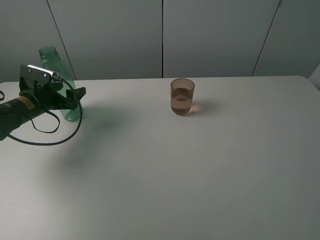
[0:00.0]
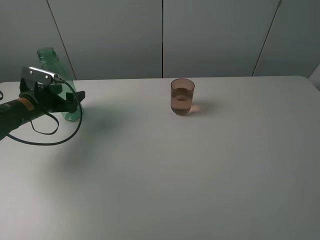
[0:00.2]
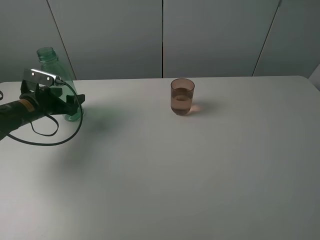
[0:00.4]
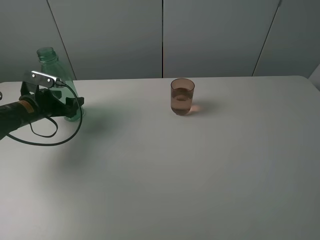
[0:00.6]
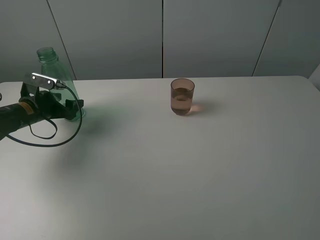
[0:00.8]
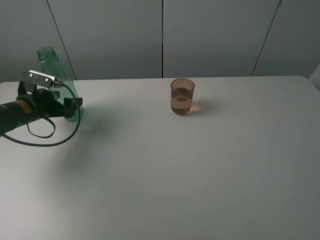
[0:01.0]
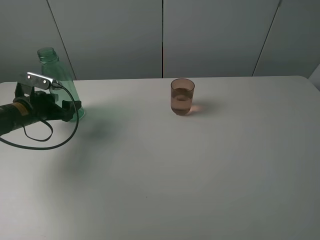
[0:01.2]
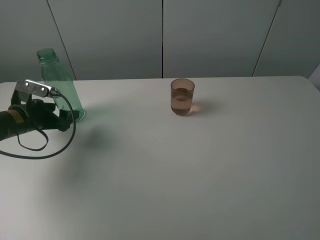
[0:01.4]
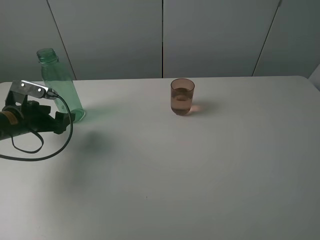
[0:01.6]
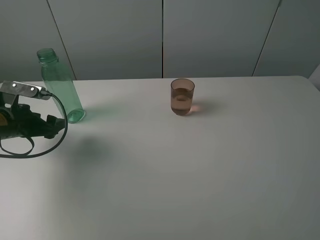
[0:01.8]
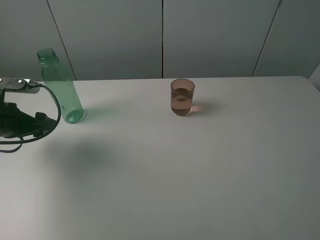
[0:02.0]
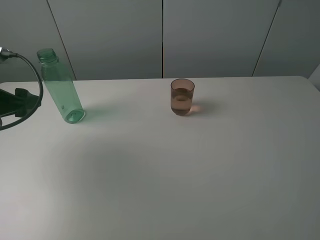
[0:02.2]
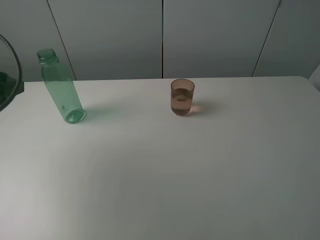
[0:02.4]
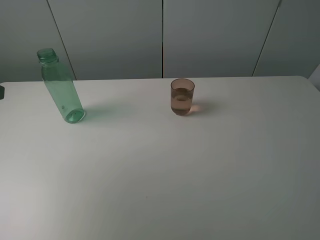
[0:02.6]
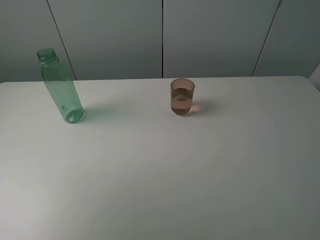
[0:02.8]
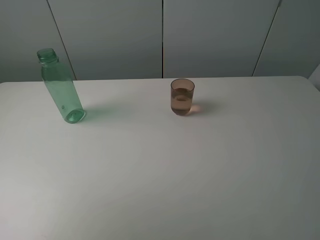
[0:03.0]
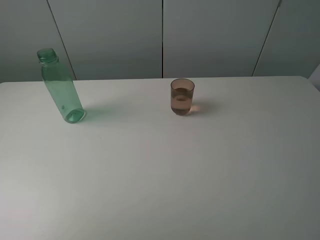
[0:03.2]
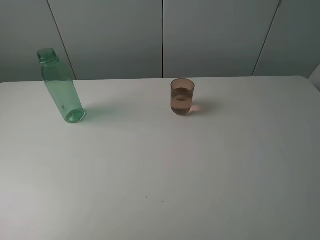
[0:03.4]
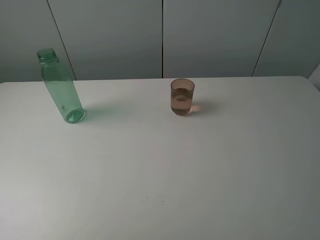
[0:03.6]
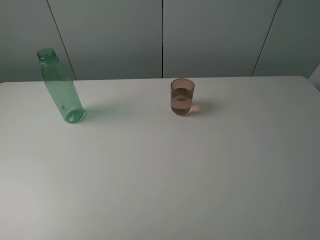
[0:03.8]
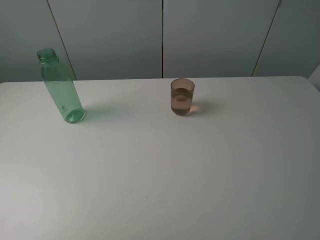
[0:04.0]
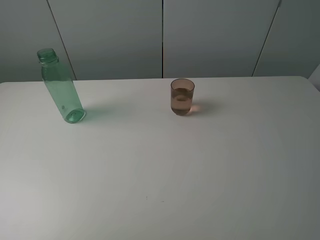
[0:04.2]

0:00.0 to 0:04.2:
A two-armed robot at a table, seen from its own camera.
Task of the whole recording: pick up the bottle filled with water and pour it into the pink cup.
0:00.0 to 0:01.4: The left gripper travels backward by roughly 5 cm.
0:01.4 to 0:02.8: The left gripper heads upward and backward, covering approximately 25 cm.
0:02.8 to 0:04.2: The left gripper moves backward, approximately 15 cm.

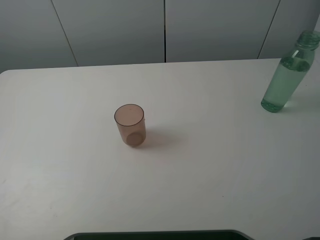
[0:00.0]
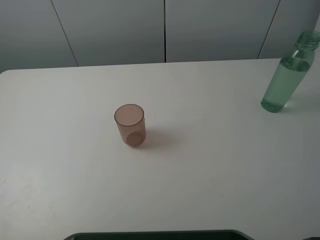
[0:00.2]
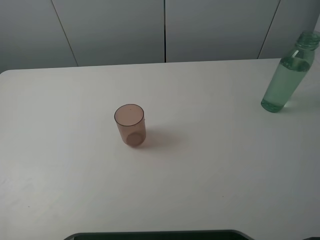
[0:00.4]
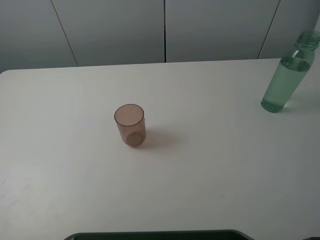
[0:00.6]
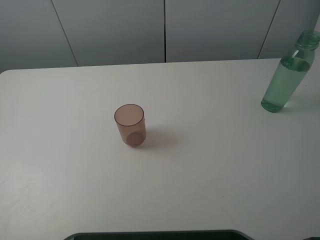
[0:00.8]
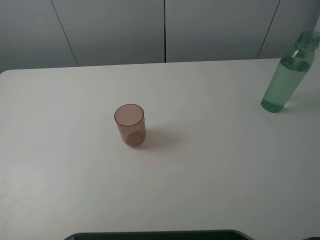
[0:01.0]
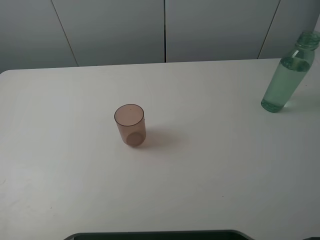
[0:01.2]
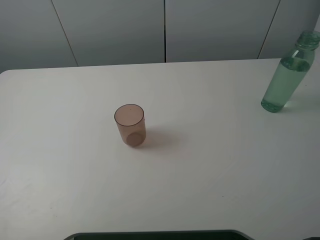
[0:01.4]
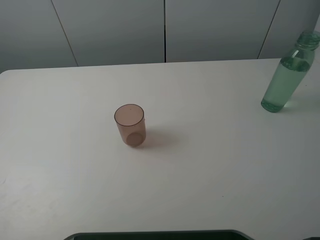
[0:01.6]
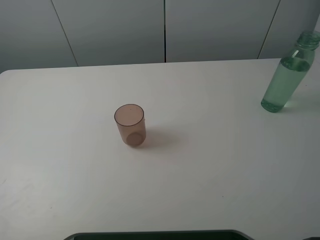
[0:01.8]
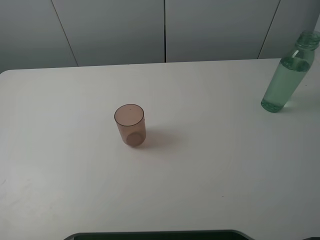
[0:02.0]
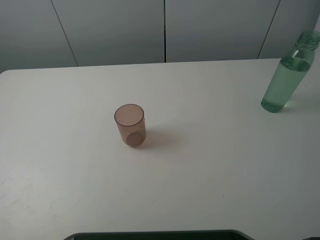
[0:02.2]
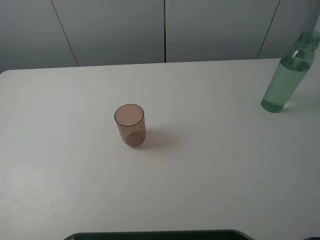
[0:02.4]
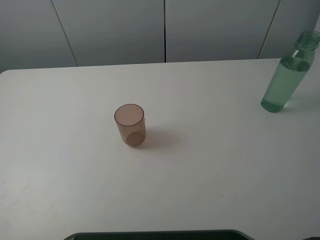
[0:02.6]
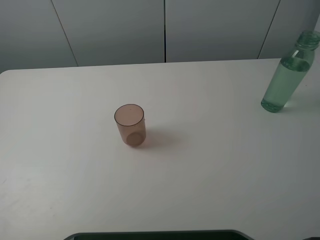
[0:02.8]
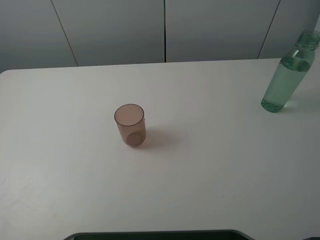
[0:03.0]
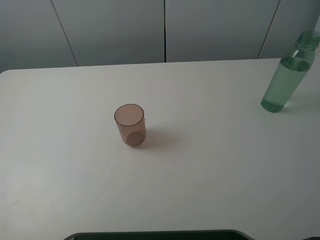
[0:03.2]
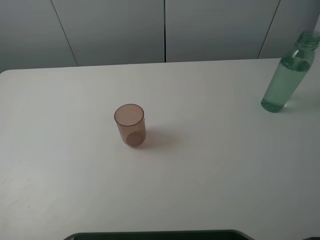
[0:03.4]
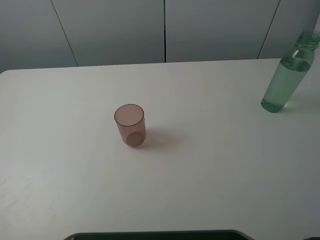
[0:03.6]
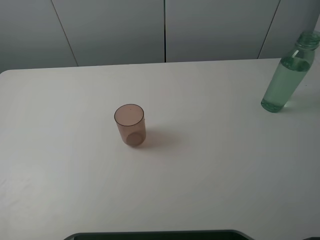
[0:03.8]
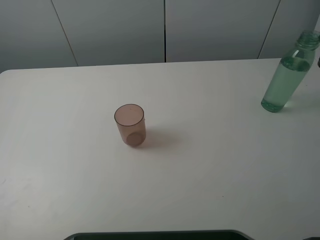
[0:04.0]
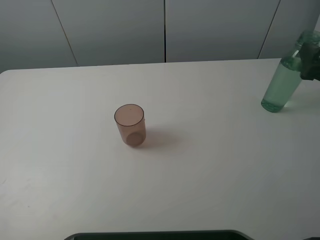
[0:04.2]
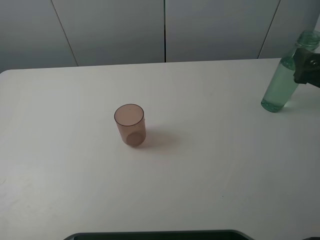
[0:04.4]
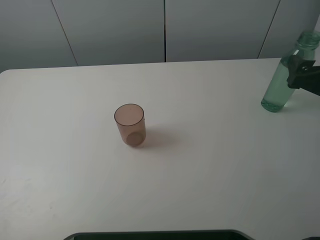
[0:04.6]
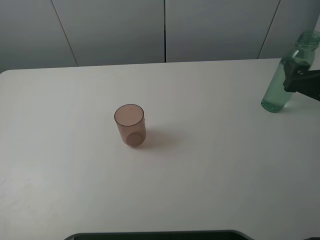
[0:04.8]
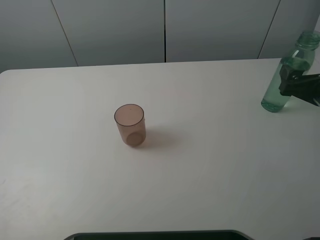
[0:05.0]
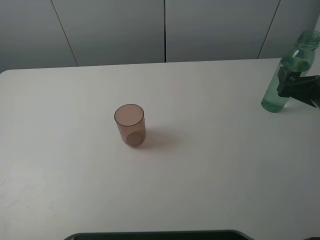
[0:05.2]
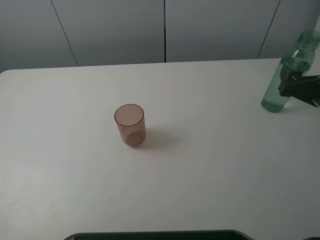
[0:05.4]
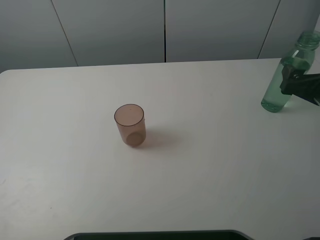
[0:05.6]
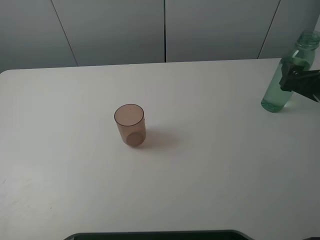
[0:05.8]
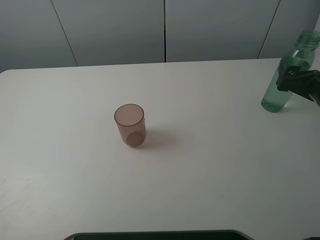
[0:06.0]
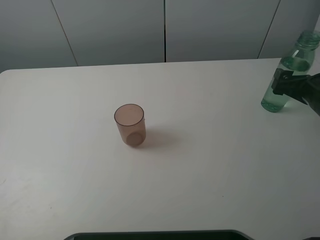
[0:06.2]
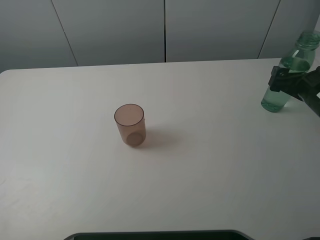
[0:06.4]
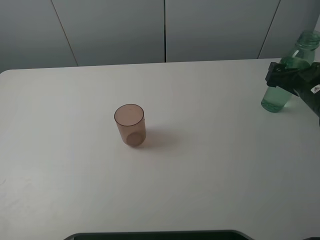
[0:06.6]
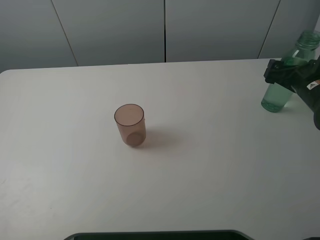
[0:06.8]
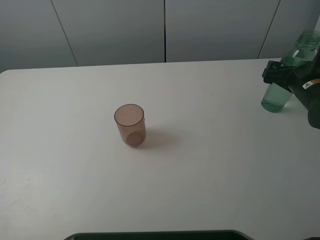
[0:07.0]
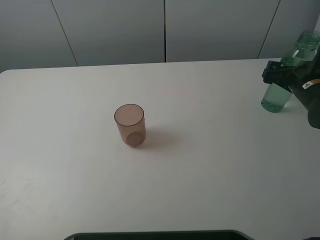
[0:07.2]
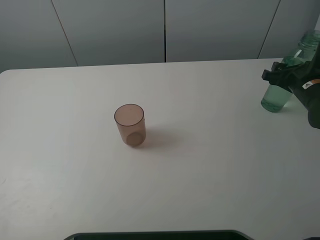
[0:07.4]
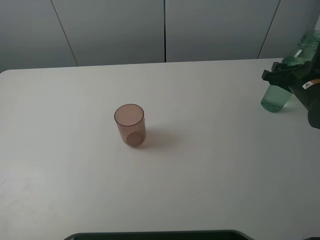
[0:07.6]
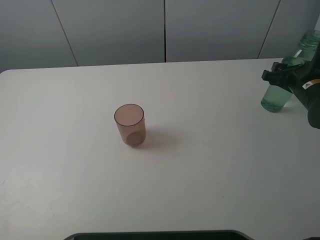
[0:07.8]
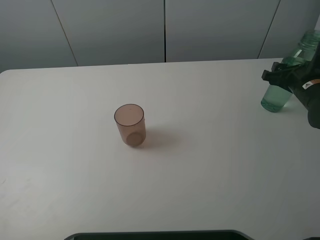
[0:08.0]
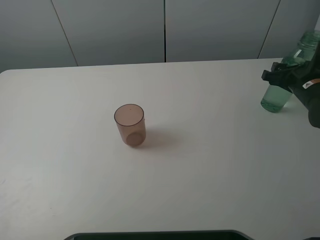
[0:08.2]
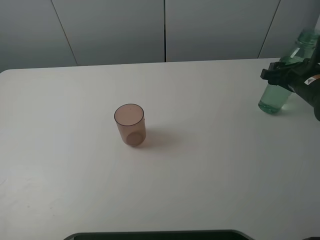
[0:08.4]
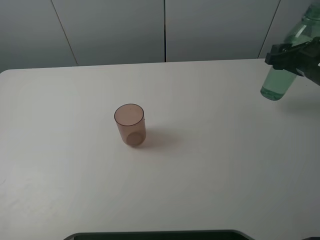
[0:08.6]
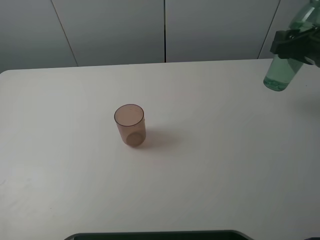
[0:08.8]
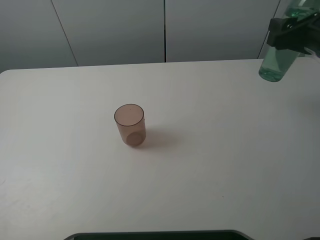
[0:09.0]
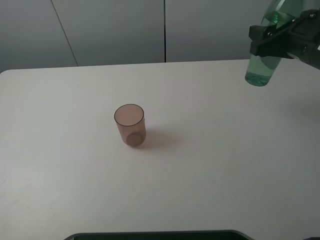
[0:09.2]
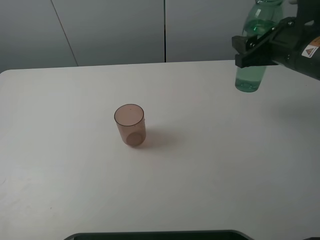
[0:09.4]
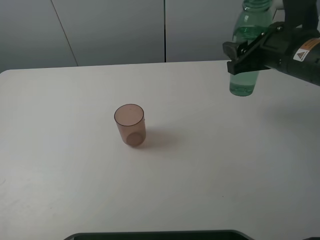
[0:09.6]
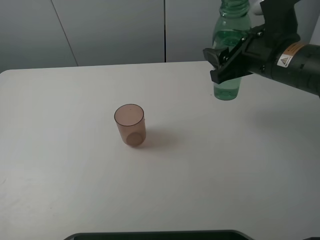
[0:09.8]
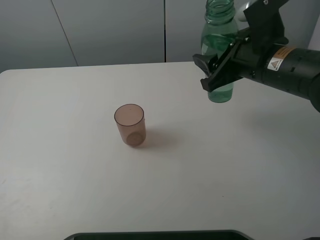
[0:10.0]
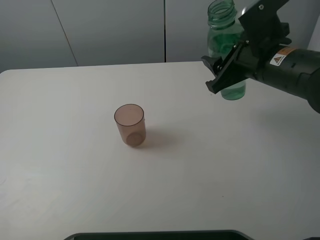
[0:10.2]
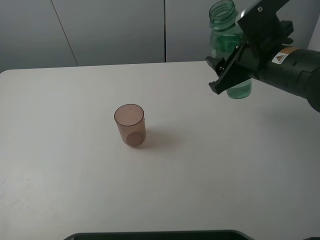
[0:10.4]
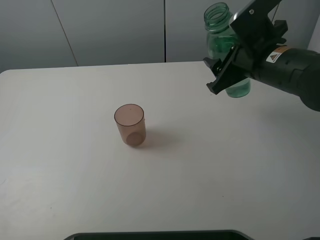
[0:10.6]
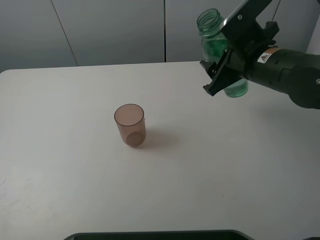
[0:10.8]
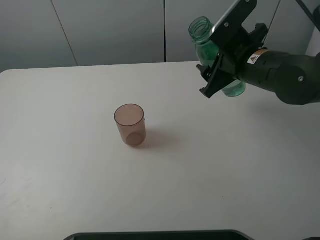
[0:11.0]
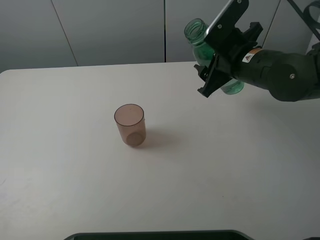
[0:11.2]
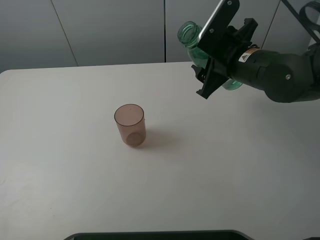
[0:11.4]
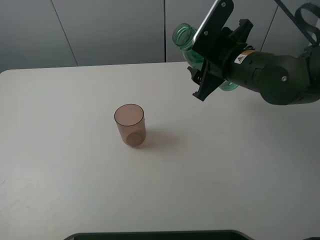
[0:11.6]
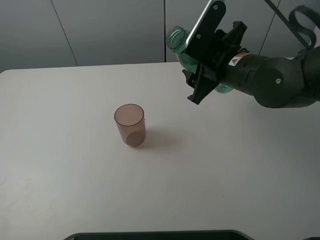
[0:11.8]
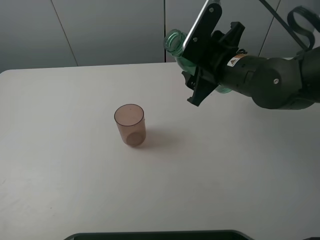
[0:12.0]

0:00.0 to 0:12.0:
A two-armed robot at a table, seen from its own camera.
Task of the whole recording: pick up the bottle filled with water and pour it into the pink cup.
0:03.0 to 0:04.4: The right gripper moves downward and forward, about 20 cm.
0:04.4 to 0:06.0: The right gripper ends up approximately 5 cm from where it was.
0:06.0 to 0:07.6: The right gripper shifts some 5 cm forward, and closes up.
0:07.6 to 0:09.0: The right gripper goes approximately 10 cm upward.
0:09.0 to 0:10.4: The right gripper moves to the left, roughly 10 cm.
0:10.4 to 0:12.0: The right gripper moves approximately 5 cm.

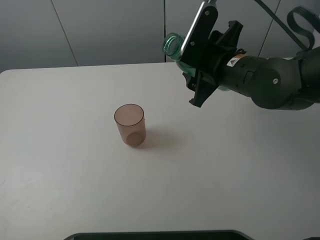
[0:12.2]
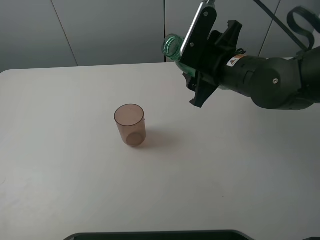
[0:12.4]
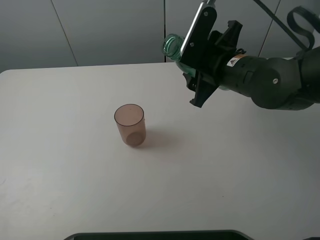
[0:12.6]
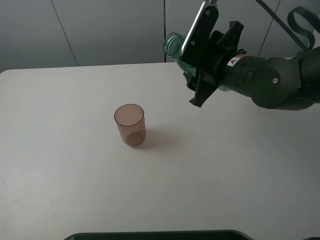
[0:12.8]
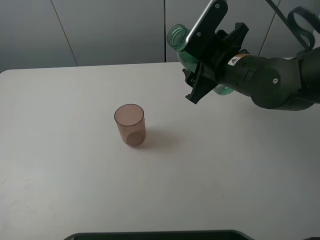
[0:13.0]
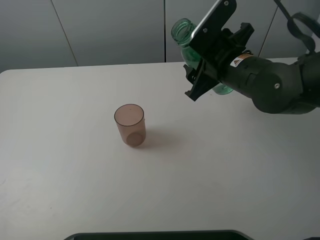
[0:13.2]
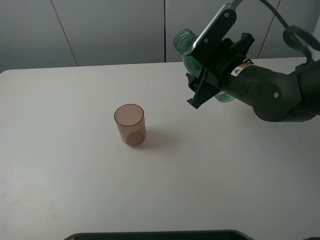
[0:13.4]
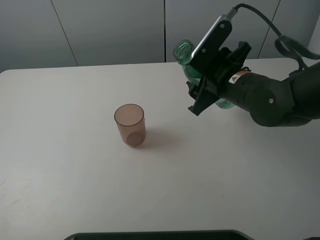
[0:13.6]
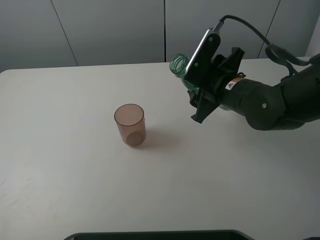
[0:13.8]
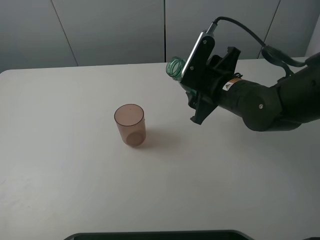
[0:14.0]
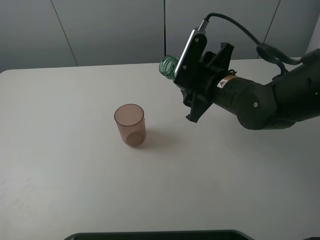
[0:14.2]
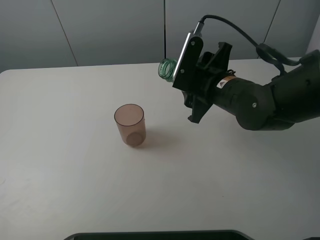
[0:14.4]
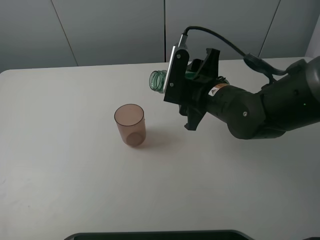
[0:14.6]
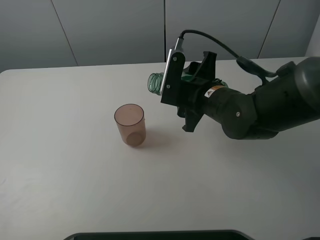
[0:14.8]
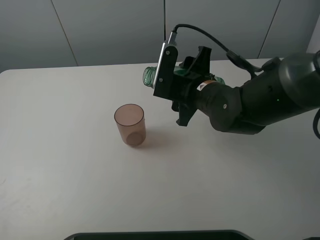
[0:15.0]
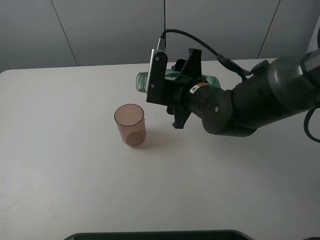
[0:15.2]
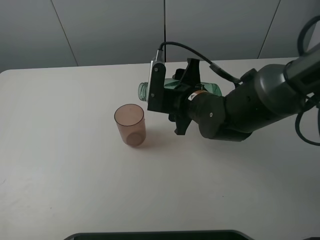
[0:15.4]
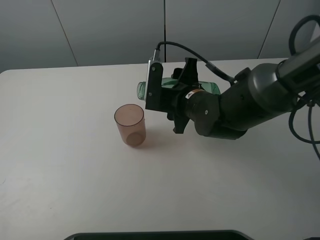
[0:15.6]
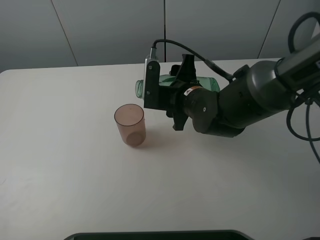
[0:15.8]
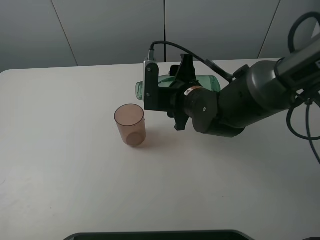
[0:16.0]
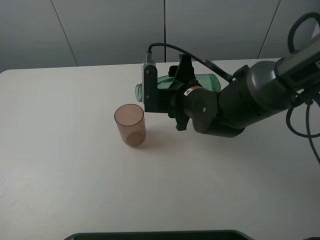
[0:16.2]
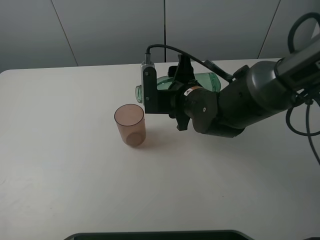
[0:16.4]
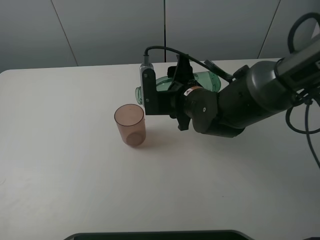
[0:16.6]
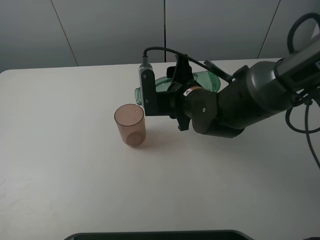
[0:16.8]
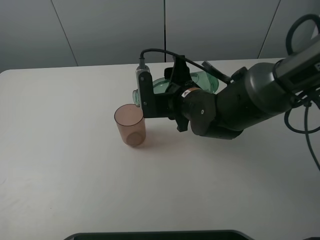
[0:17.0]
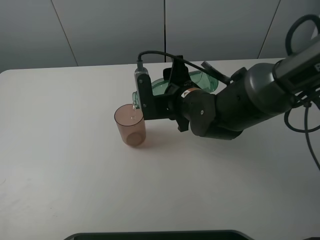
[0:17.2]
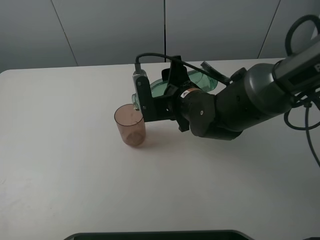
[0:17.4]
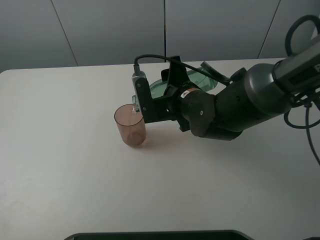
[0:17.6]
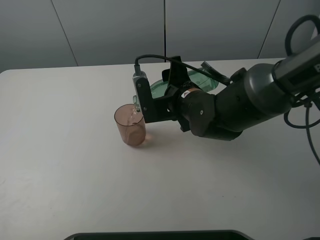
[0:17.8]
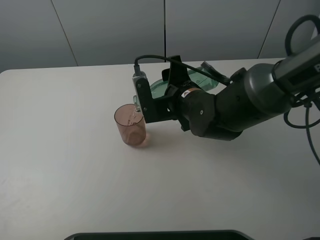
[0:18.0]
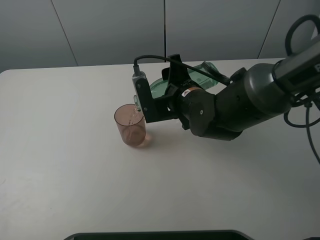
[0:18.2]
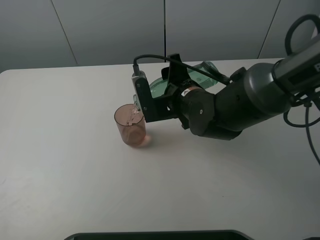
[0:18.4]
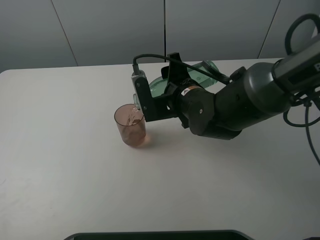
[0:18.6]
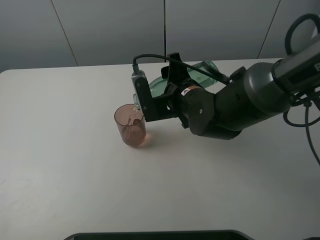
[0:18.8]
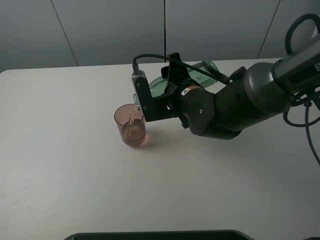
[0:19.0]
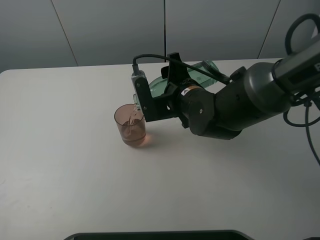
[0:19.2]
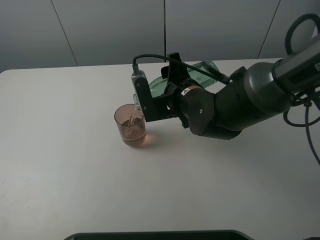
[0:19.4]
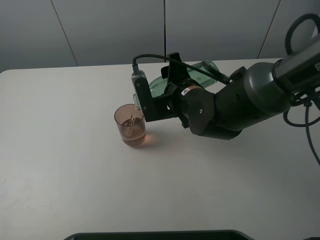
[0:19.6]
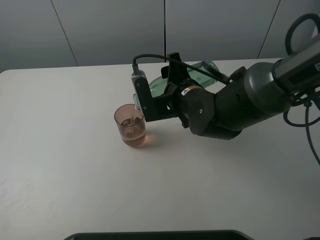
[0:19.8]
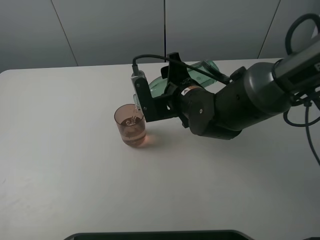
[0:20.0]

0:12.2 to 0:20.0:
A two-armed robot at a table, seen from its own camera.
Task of the whole recording: pick up the bottle filled with water and pour it into the pink cup.
0:12.2 to 0:13.8: The grippers stay close to where they were, moving slightly.
0:13.8 to 0:15.4: The right gripper heads to the left, covering about 5 cm.
0:15.4 to 0:16.8: The grippers stay close to where they were, moving slightly.
0:16.8 to 0:18.4: The grippers move only a little.
0:18.4 to 0:20.0: Both grippers stay about where they are.
